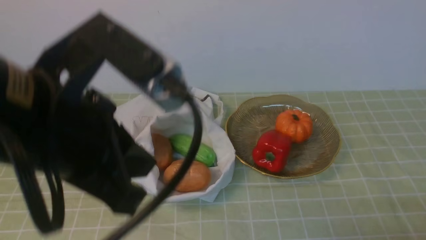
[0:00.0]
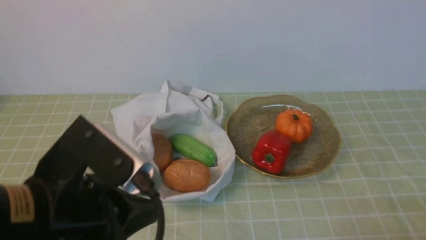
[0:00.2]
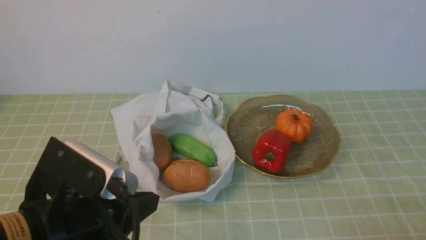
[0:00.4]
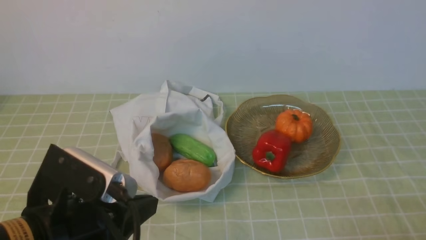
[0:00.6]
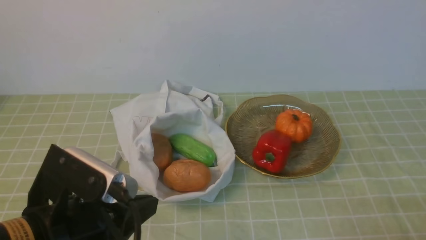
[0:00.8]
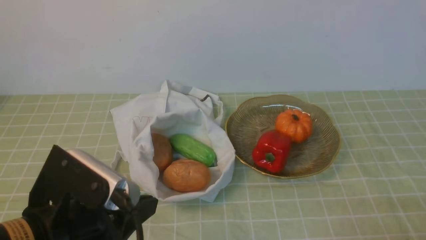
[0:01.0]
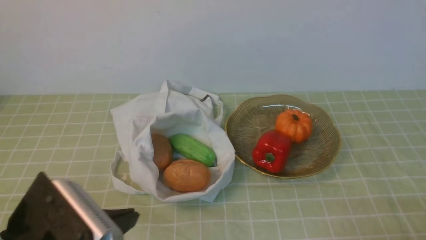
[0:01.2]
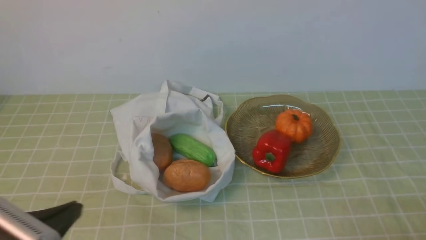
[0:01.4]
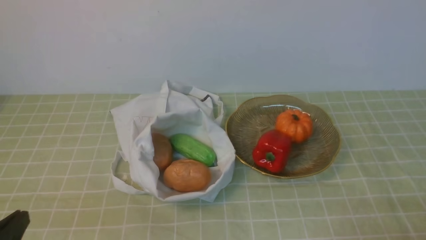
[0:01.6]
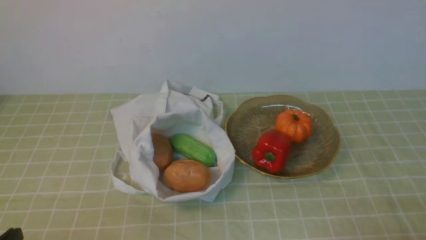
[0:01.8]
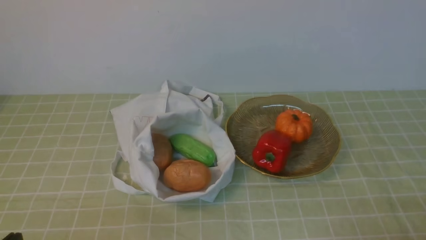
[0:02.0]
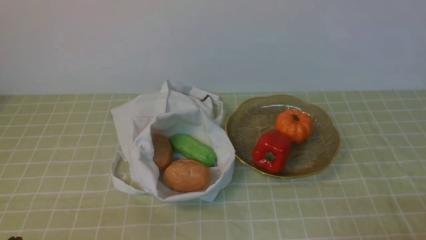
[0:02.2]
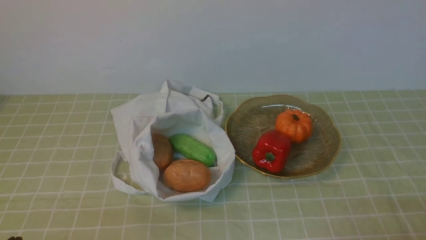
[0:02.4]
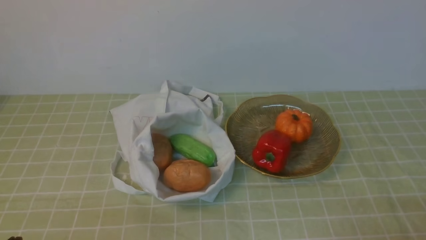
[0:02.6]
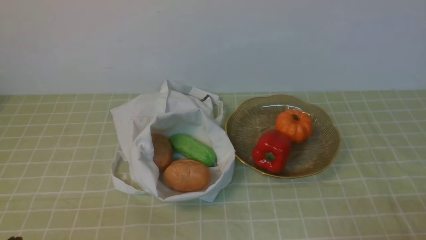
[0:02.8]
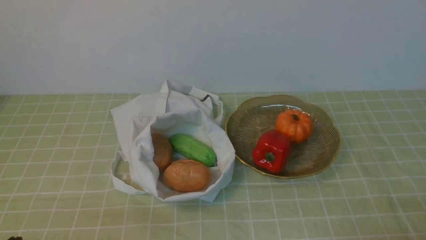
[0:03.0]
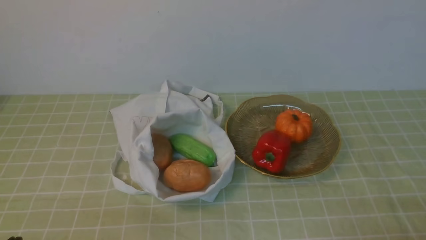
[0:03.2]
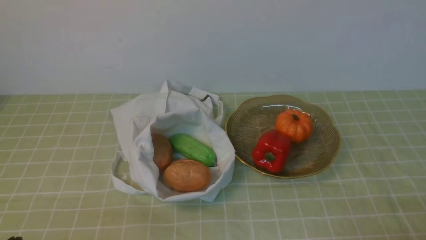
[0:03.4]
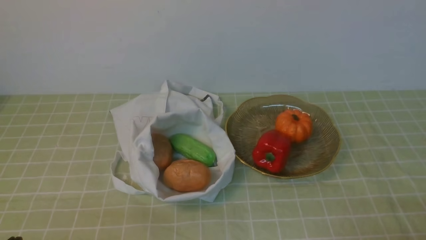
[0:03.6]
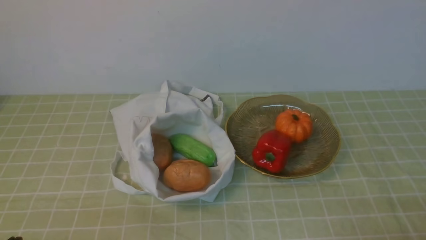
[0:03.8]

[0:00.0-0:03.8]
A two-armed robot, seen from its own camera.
Task of the whole recording: take vegetables from bag on green coffee tablecloth place on plate.
0:00.0 to 0:01.2: The left gripper moves downward, to the left and backward, approximately 15 cm.
0:01.2 to 0:02.6: The left gripper is displaced downward, to the left and backward by approximately 10 cm.
0:02.6 to 0:03.8: Both grippers stay about where they are.
